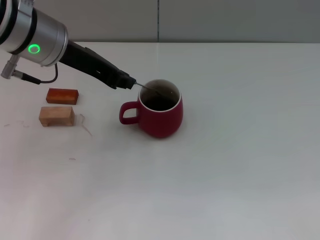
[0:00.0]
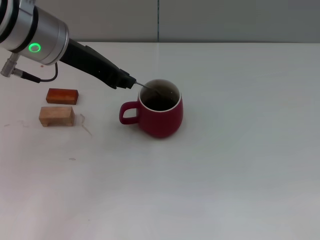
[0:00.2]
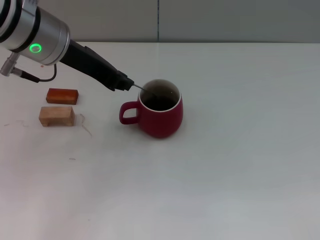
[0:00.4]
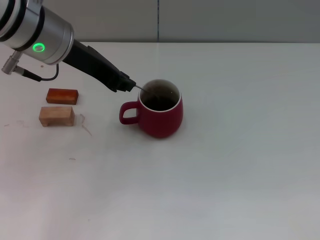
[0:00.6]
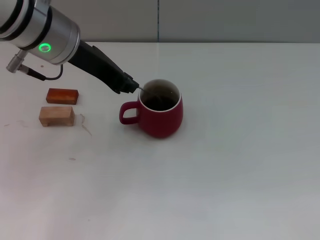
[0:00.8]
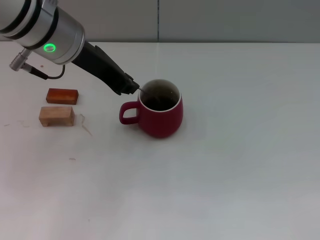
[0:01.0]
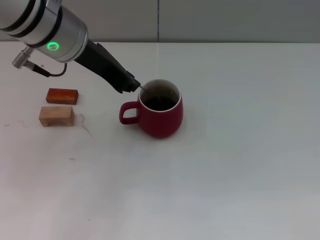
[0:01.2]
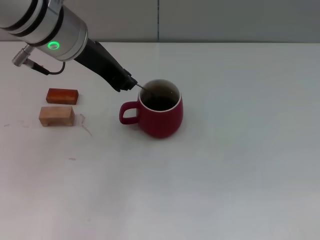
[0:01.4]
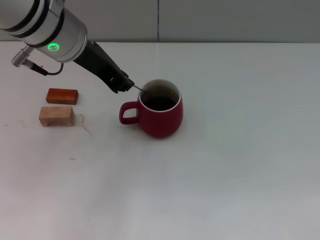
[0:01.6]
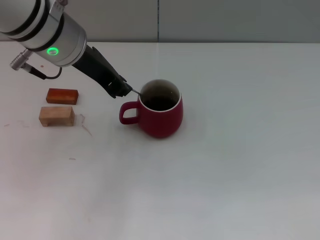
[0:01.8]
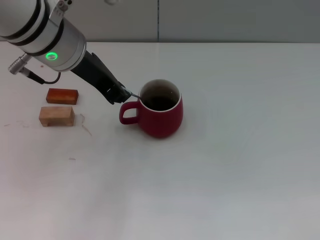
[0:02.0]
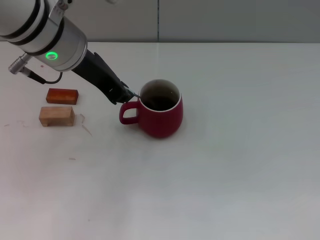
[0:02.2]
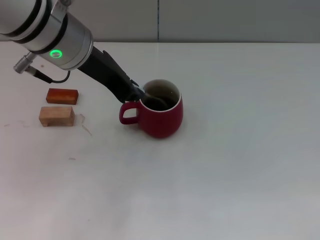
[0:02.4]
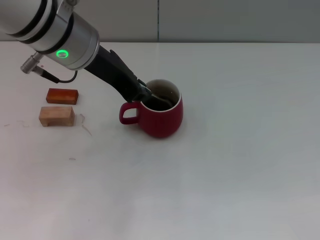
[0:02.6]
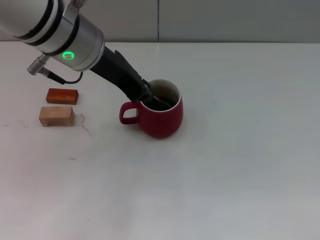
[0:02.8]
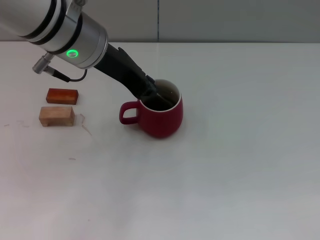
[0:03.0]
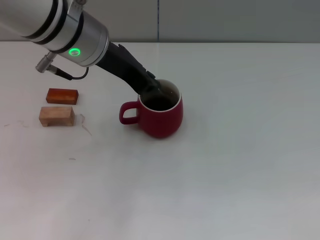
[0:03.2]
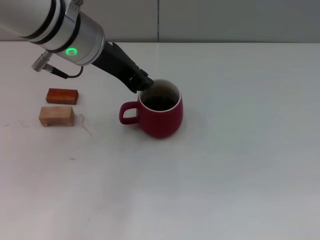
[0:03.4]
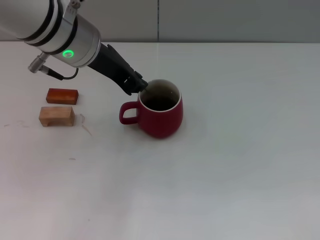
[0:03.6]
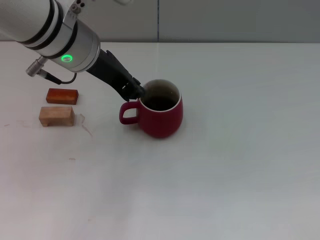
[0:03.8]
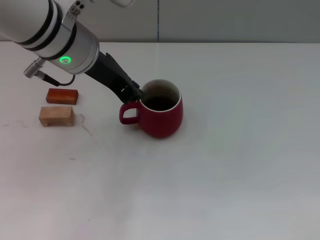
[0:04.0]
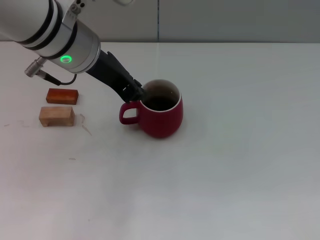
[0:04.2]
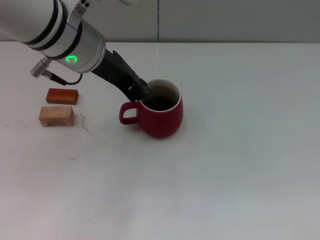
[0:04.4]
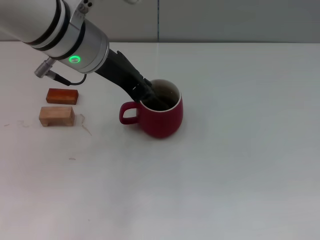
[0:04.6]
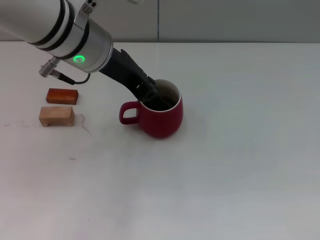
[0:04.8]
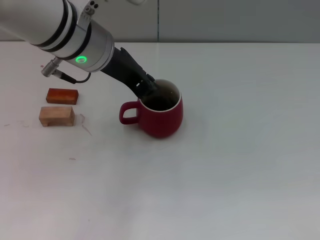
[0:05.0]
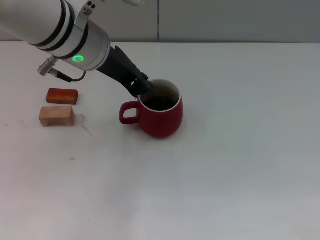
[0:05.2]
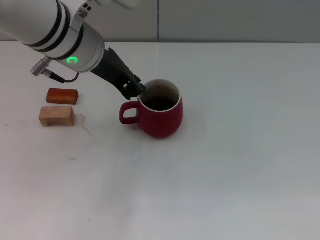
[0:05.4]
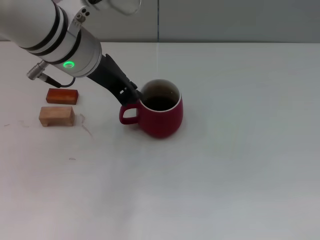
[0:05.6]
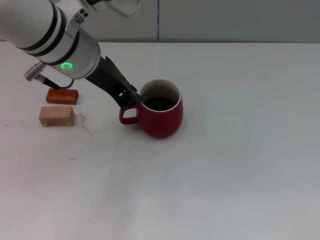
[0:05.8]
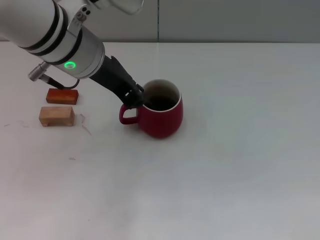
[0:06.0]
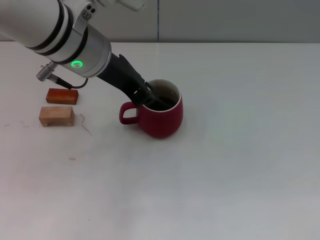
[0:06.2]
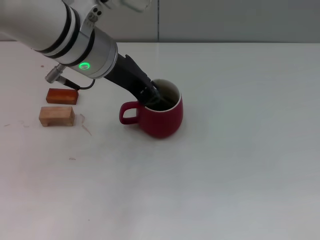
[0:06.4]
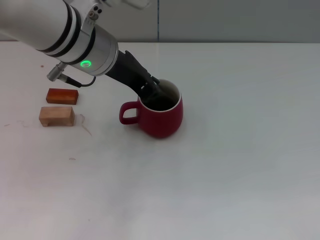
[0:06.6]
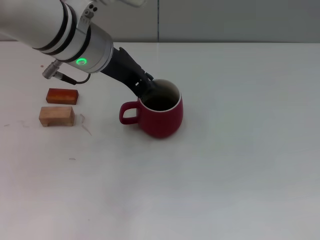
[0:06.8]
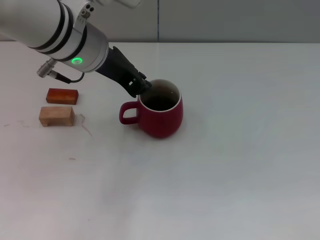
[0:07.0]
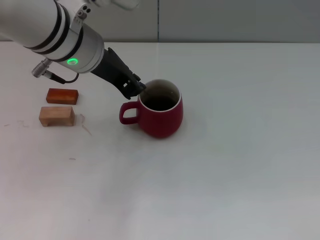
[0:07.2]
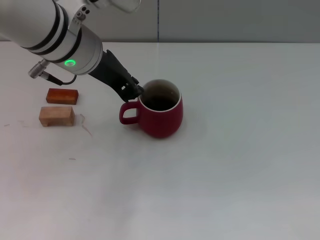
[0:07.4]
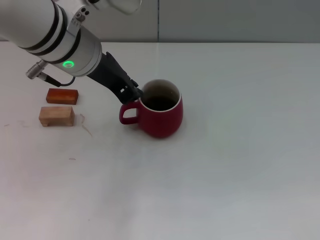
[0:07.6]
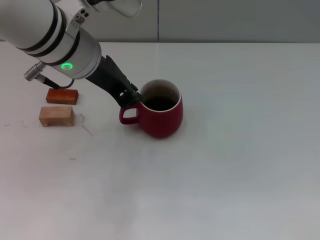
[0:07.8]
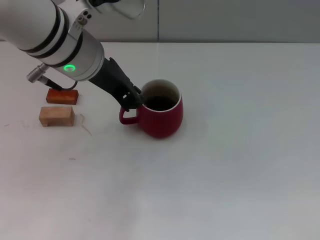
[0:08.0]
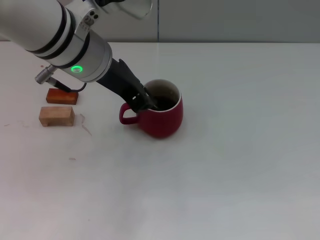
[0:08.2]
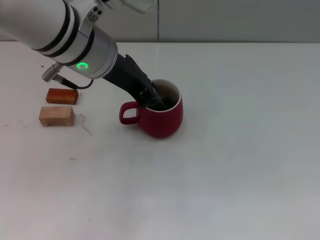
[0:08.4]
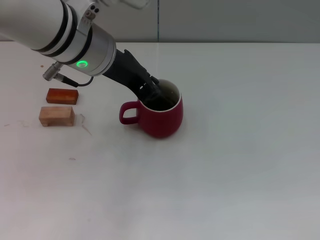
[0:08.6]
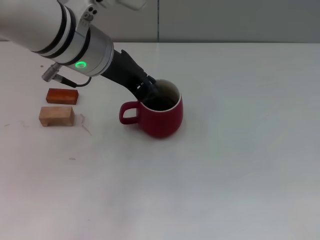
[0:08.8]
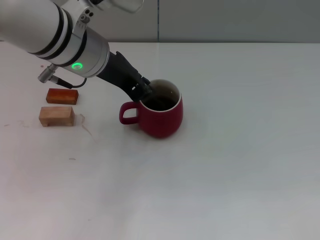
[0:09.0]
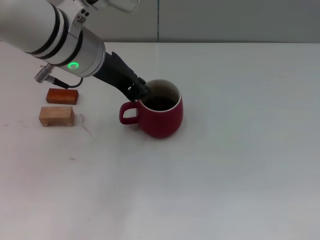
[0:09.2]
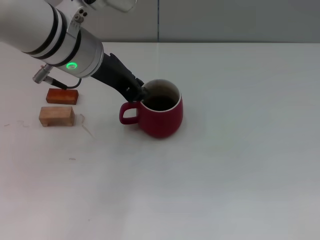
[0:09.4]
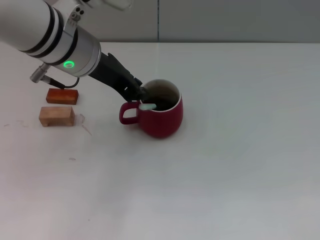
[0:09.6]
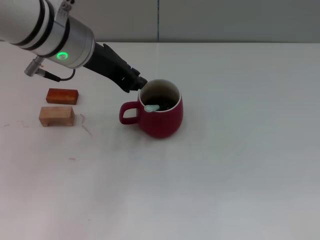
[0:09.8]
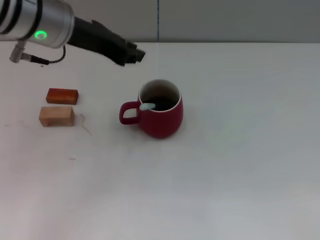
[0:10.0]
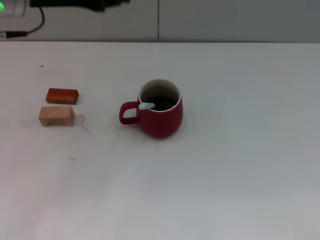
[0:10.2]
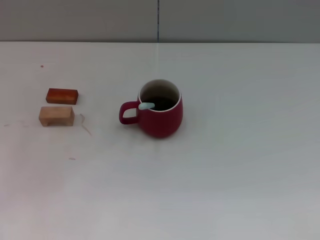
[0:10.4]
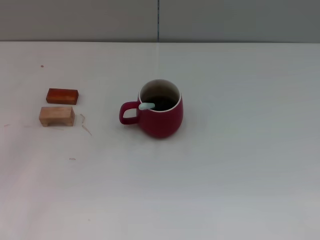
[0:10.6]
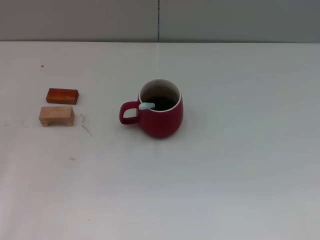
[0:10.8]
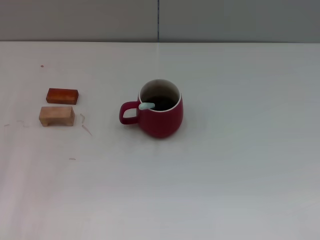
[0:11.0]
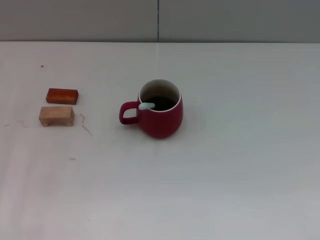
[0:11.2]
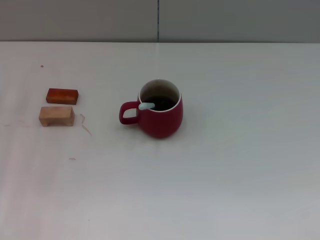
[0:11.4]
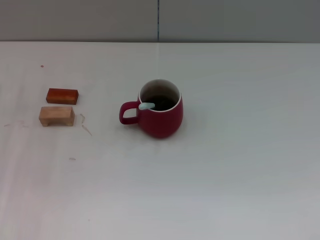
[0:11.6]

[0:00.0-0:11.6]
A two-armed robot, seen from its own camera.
Task of the whole recording: Move the red cup to the center, lift the blue spoon, stir it three times in the cup, and put the spoon into the cup.
Step, 0:00.0 to 0:09.8: Stir the coffee in the cup with the left gripper.
0:00.0 to 0:04.4: There are only small adjustments of the grippers.
0:04.4 to 0:05.8: The two grippers keep their place.
0:05.8 to 0:08.8: The grippers move only a little.
0:08.8 to 0:10.2: The left gripper heads to the left, covering some 10 cm.
0:10.2 to 0:11.6: The left gripper shifts roughly 20 cm downward and to the left.
